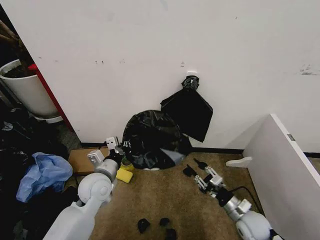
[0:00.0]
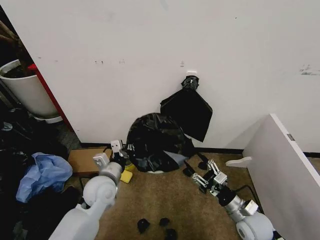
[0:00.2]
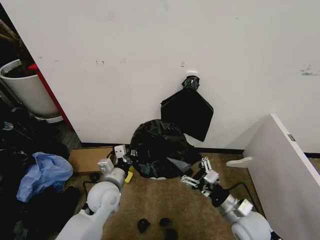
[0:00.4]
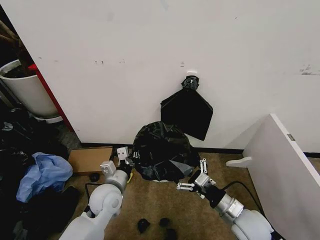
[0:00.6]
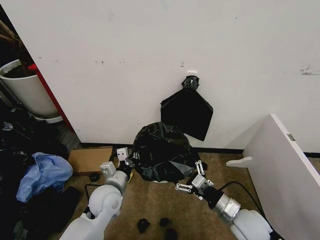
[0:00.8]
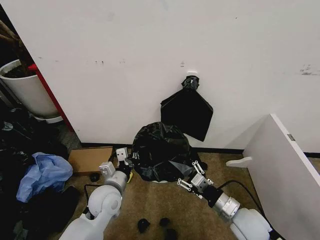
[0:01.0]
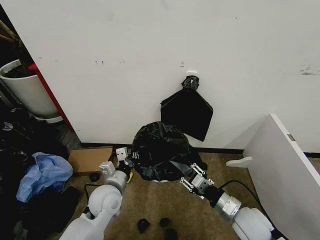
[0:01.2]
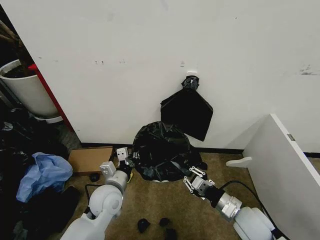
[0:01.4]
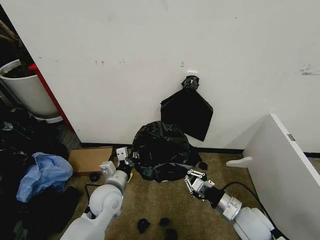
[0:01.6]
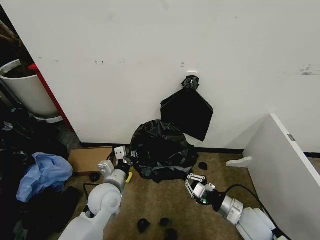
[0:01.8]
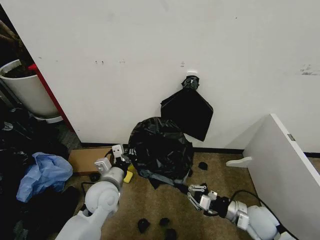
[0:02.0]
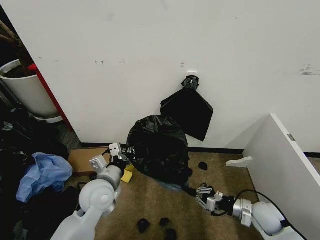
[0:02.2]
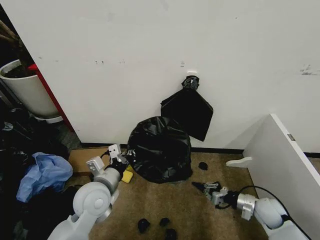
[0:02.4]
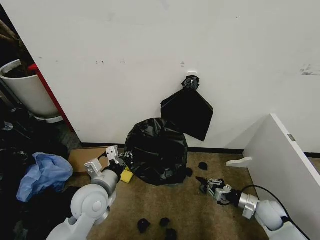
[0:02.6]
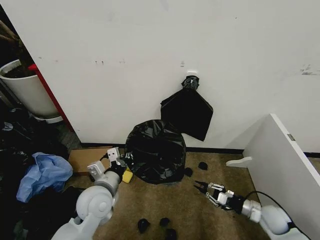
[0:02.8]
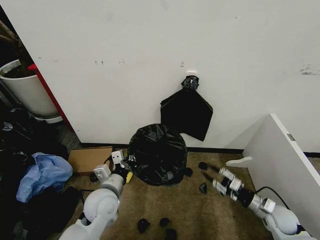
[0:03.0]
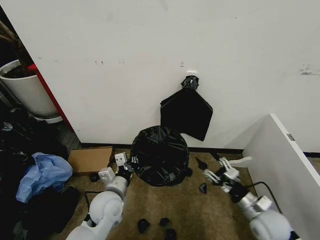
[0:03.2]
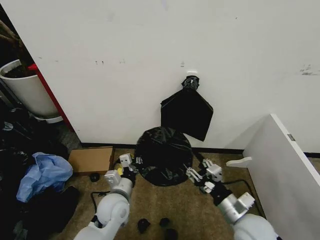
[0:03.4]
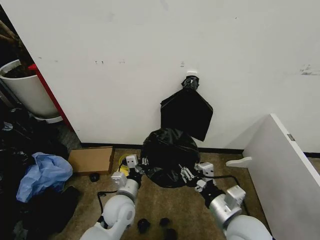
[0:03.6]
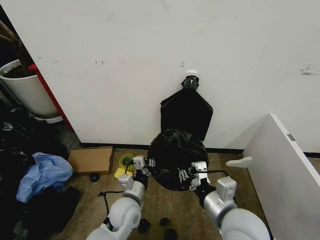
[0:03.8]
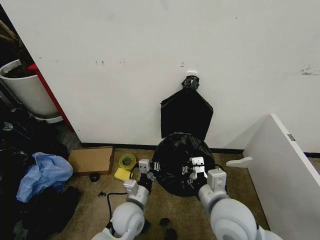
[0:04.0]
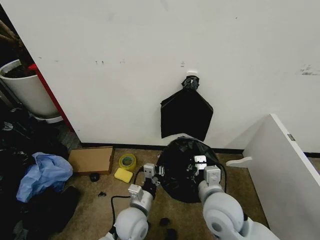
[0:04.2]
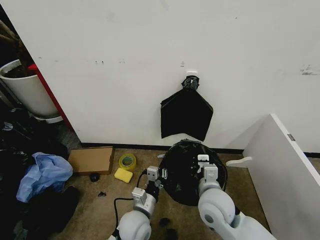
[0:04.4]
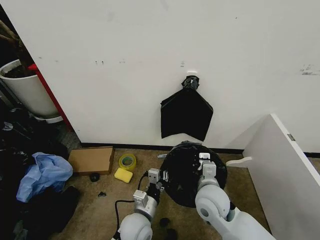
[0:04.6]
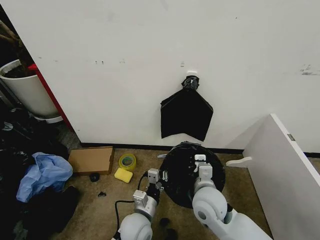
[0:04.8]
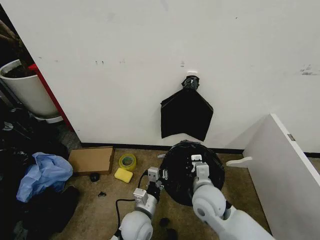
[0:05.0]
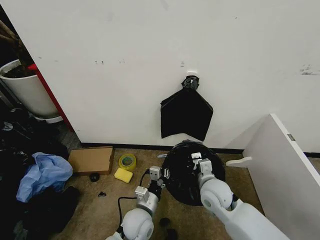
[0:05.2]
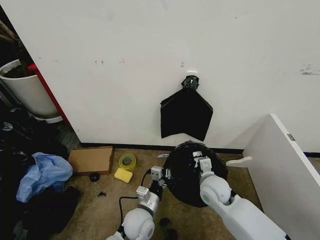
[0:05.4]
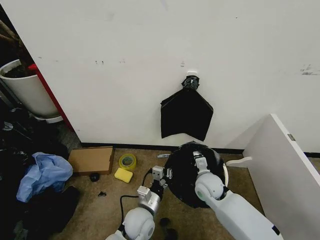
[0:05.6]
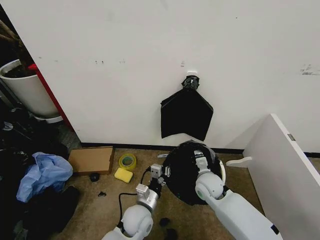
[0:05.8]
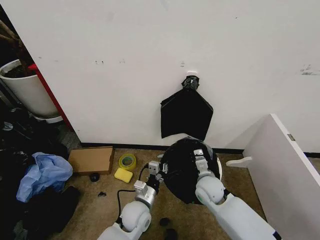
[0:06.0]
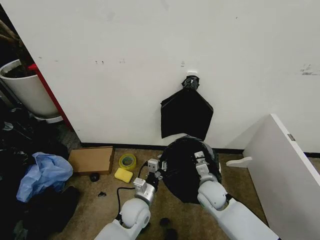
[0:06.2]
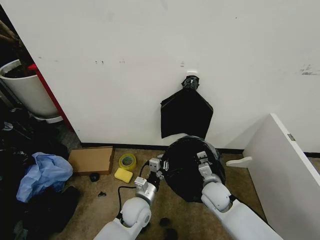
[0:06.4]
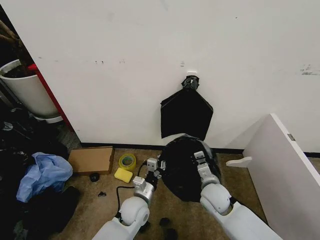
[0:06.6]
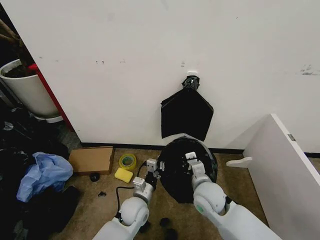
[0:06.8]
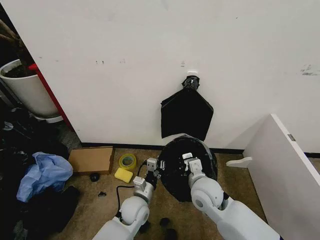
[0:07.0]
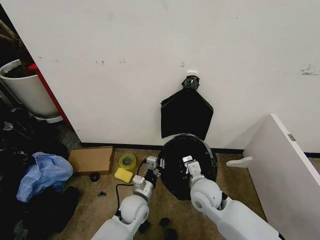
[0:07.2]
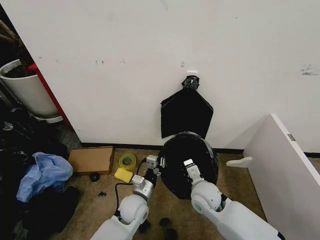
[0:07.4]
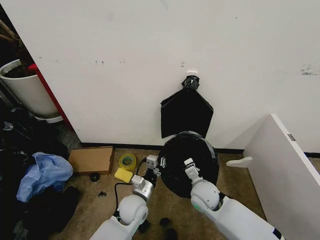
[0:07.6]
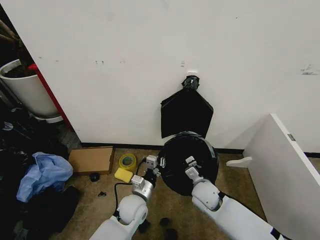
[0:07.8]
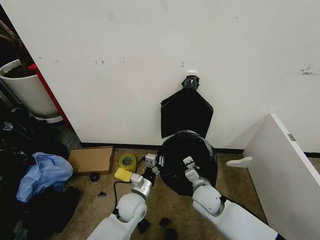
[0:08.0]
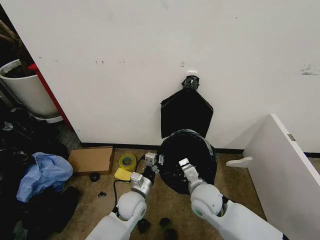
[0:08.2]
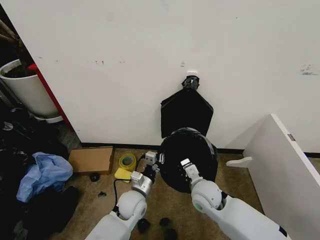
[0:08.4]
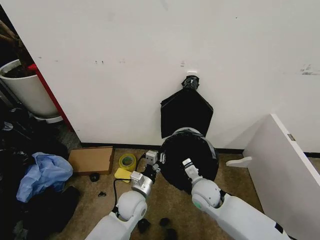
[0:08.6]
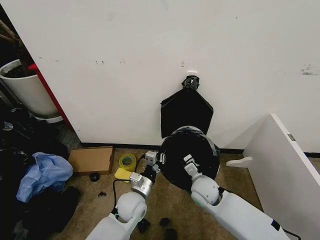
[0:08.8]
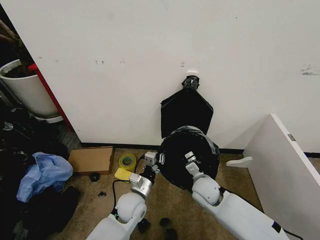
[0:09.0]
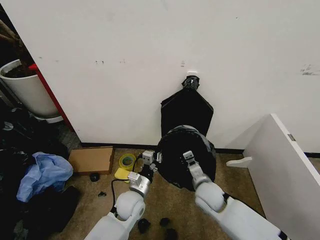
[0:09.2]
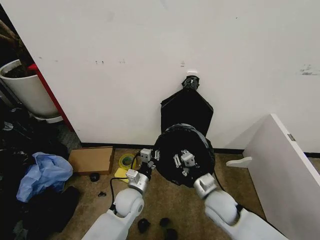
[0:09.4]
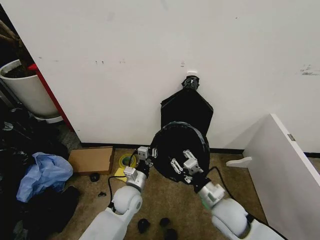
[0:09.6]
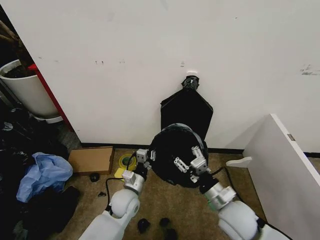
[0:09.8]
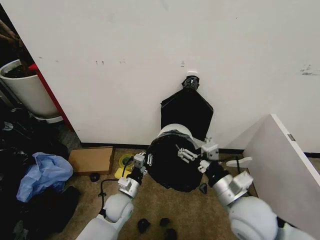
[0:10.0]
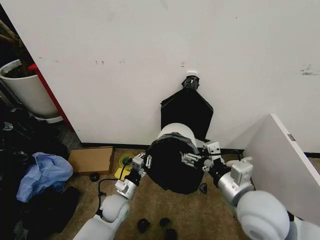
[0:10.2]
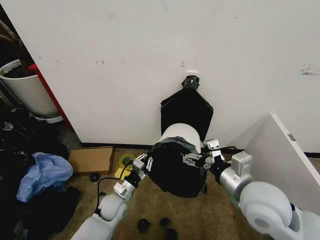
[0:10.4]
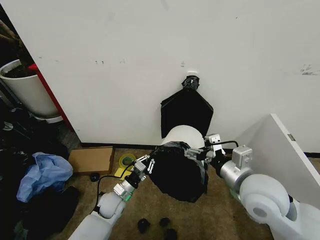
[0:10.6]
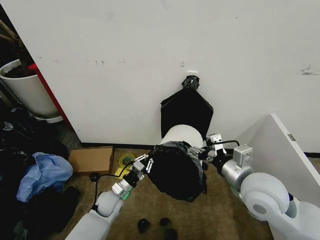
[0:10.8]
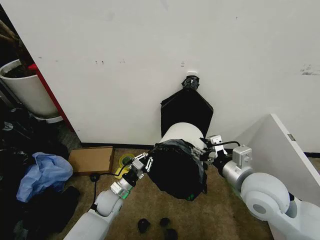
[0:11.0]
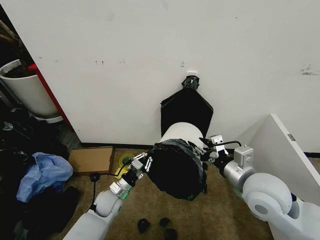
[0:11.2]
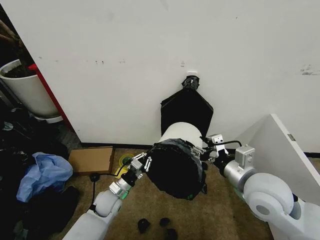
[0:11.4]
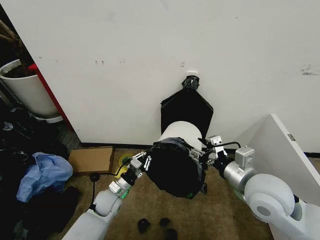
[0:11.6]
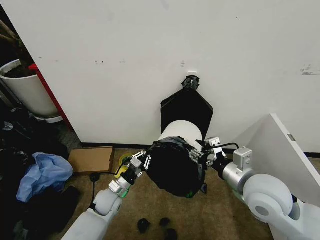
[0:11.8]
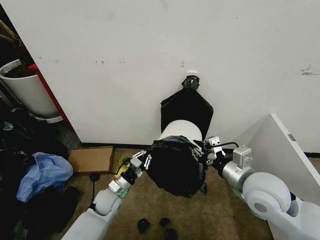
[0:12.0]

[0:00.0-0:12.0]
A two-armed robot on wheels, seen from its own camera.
Task of the whole recording: Place the garbage bag over the trash bin.
0:00.0 to 0:01.6: The left gripper changes place by some 5 cm, while the right gripper heads upward, covering approximately 10 cm, and opens, then closes once more.
0:01.6 to 0:03.0: The right gripper shifts approximately 15 cm to the right and downward.
0:03.0 to 0:04.4: The left gripper shifts roughly 15 cm to the right and downward. Meanwhile the right gripper shifts about 30 cm to the left and upward.
0:04.4 to 0:06.0: The right gripper travels downward and forward by roughly 10 cm.
0:06.0 to 0:07.6: The right gripper goes upward and returns, roughly 5 cm each way.
0:07.6 to 0:09.0: The grippers stay close to where they were, moving slightly.
0:09.0 to 0:10.4: The right gripper is displaced upward and backward by some 20 cm, and opens its fingers. The left gripper shifts roughly 10 cm to the left and downward.
0:10.4 to 0:12.0: The right gripper closes its fingers.

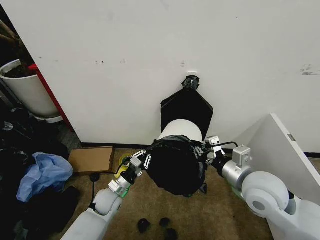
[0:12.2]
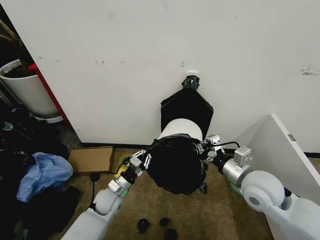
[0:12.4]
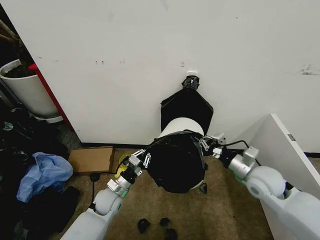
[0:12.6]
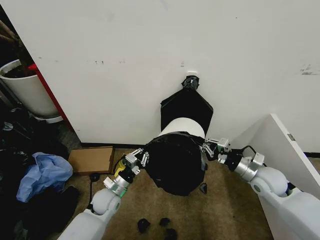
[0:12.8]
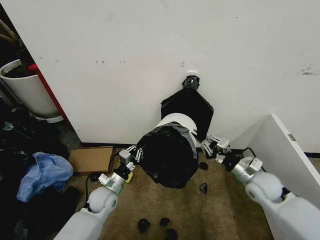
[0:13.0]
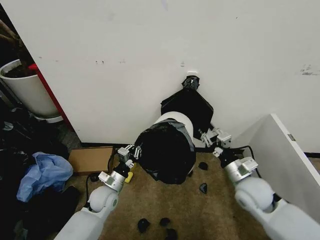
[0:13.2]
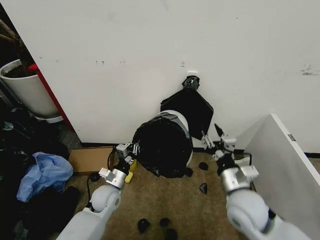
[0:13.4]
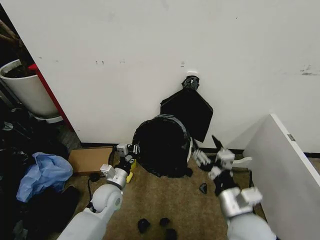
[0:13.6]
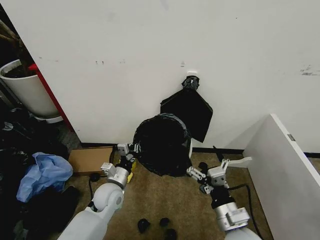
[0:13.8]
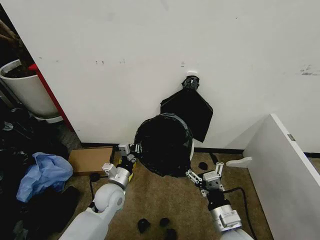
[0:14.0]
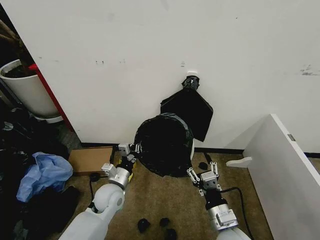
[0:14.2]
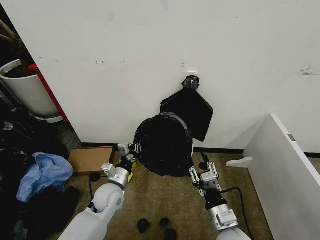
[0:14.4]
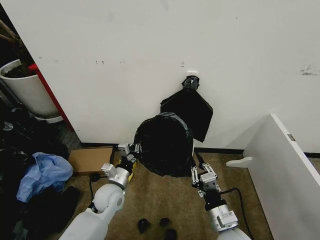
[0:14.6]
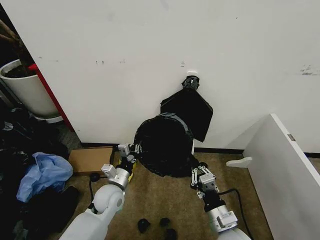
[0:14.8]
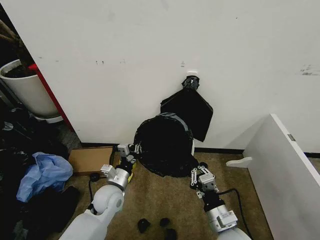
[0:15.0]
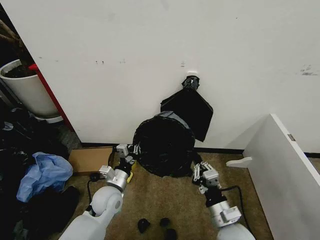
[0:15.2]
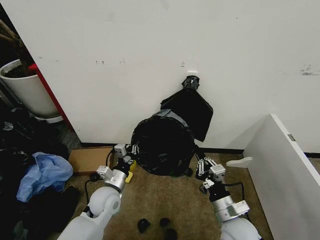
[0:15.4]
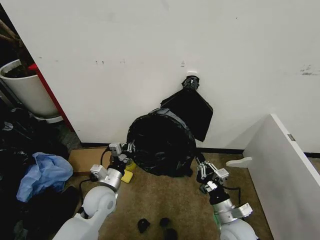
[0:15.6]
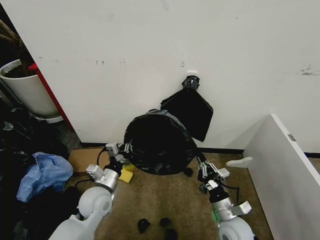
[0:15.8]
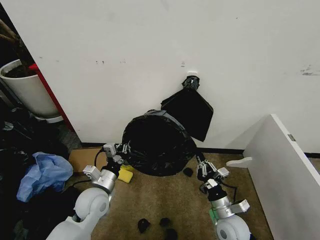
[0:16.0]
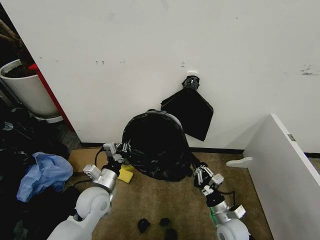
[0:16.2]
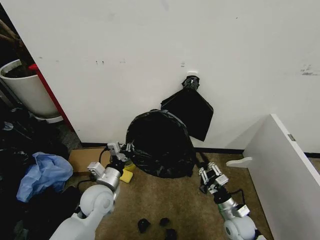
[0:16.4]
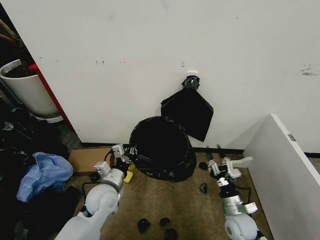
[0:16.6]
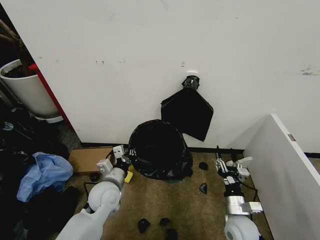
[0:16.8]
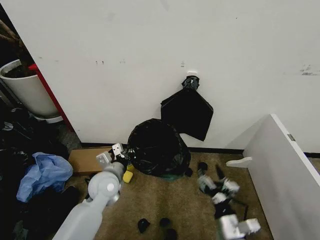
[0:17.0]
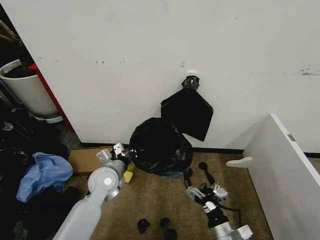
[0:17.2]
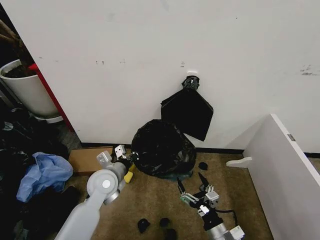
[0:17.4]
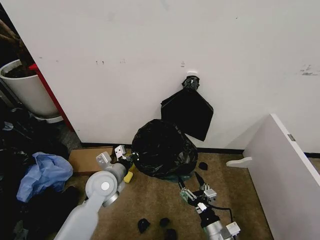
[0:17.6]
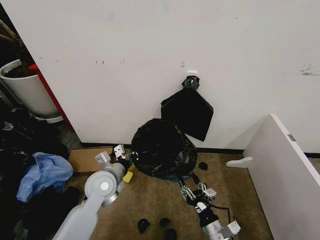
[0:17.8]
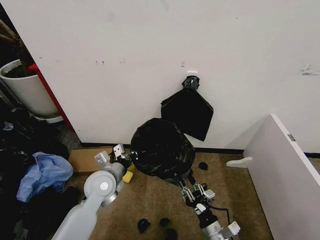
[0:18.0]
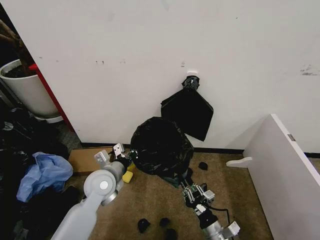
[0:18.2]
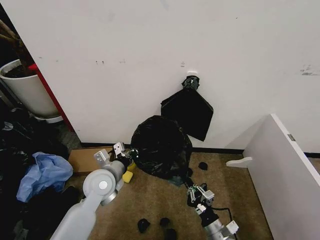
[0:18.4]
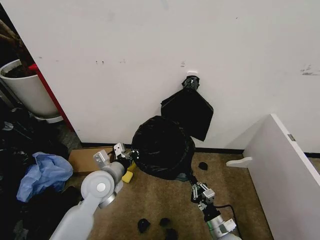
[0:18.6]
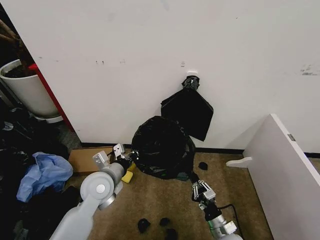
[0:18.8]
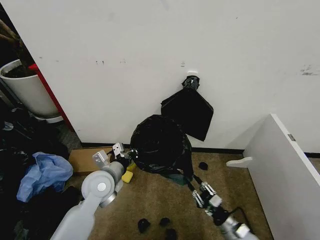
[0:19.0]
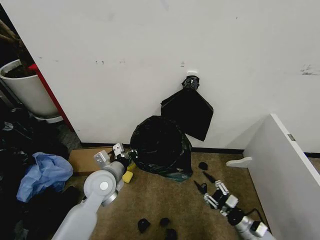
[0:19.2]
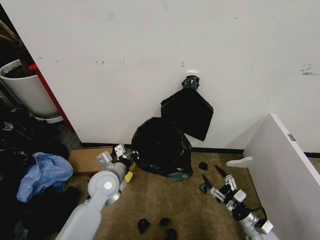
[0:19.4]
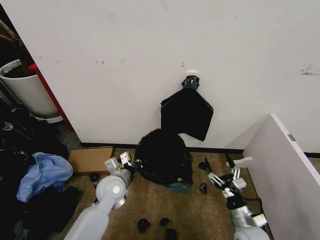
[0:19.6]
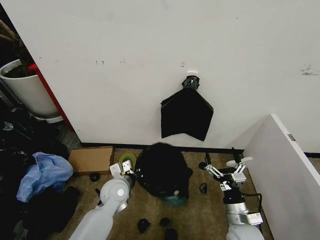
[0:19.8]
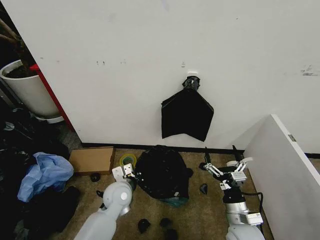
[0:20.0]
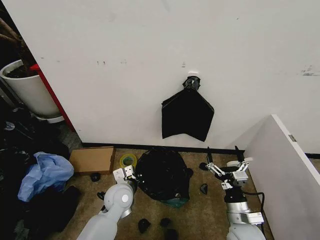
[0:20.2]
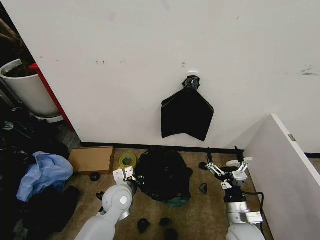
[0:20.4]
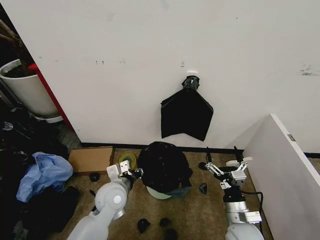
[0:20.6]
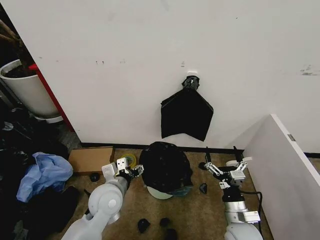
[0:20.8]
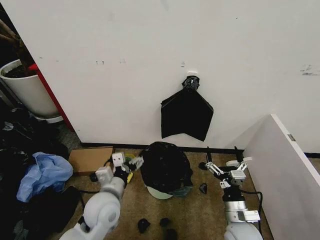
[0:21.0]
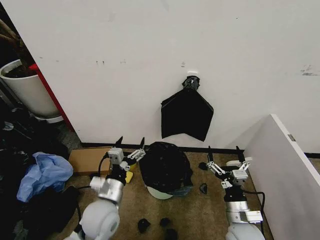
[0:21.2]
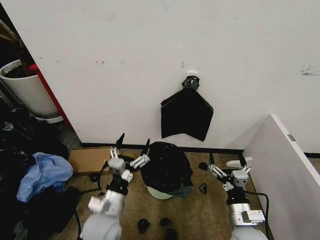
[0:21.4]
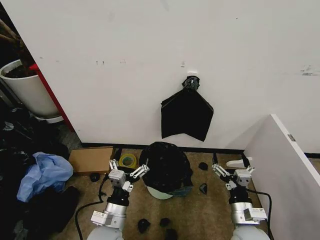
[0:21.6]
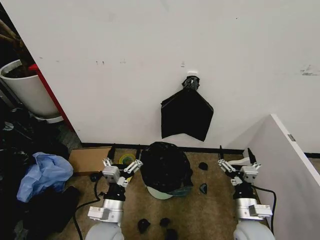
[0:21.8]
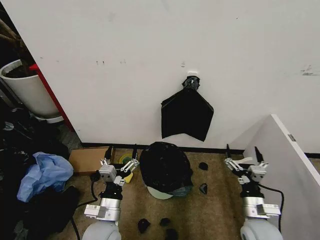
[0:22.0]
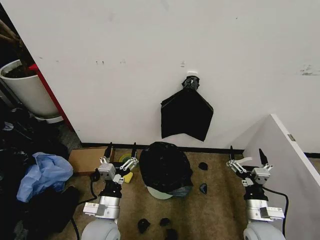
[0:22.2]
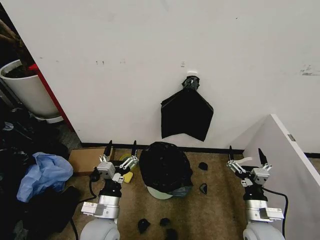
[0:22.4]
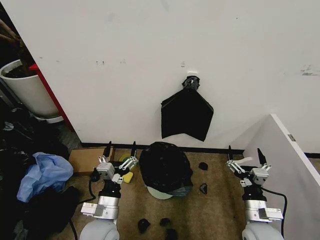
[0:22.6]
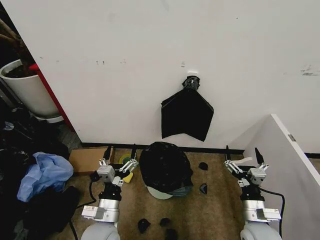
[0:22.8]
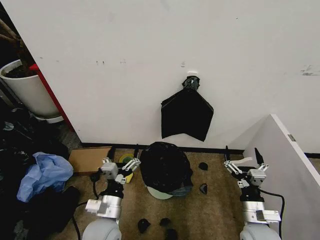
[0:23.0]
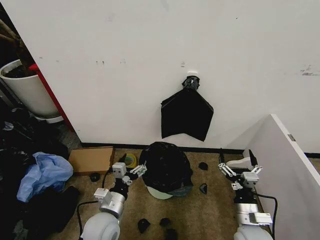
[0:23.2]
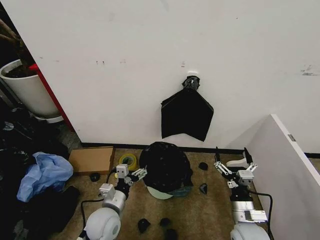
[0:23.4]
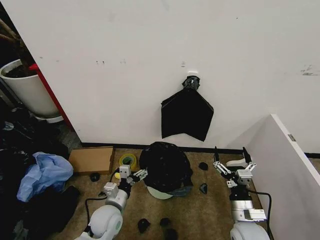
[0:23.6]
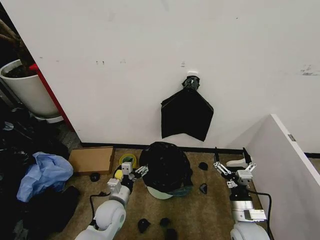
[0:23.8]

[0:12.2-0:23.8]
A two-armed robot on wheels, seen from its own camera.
Task of the whole recording: Place the garbage bag over the trash bin.
0:12.2 to 0:13.6: The right gripper is displaced backward, to the left and downward by approximately 10 cm, and opens its fingers. Meanwhile the left gripper travels upward by about 5 cm.
0:13.6 to 0:15.0: The right gripper shifts roughly 10 cm downward, and closes up.
0:15.0 to 0:16.6: The right gripper travels downward, to the right and forward by about 15 cm, and opens up.
0:16.6 to 0:18.0: The right gripper heads backward and to the left, covering about 10 cm, and opens, then closes again.
0:18.0 to 0:19.4: The right gripper is displaced to the right by some 15 cm, and closes, then opens again.
0:19.4 to 0:21.0: The right gripper is displaced to the left and upward by about 15 cm. The left gripper is displaced backward by approximately 5 cm, reaches approximately 5 cm downward, then returns, and opens.
0:21.0 to 0:22.4: The left gripper travels backward by some 5 cm; the right gripper goes some 5 cm to the right.
0:22.4 to 0:23.8: The left gripper heads downward and forward, covering about 10 cm.
